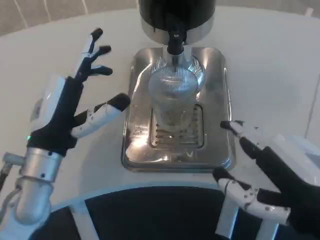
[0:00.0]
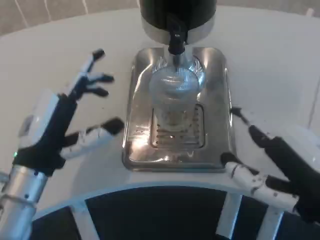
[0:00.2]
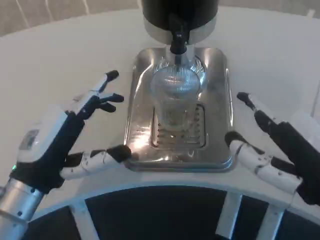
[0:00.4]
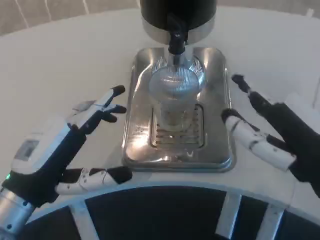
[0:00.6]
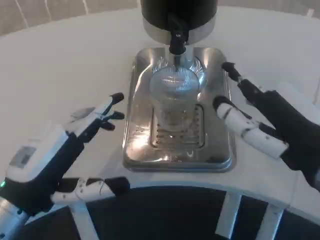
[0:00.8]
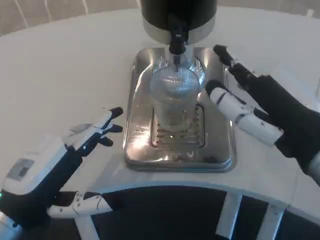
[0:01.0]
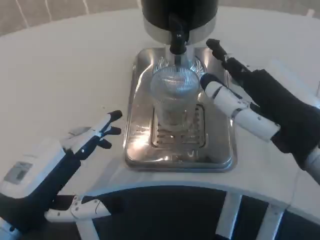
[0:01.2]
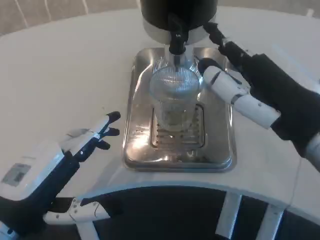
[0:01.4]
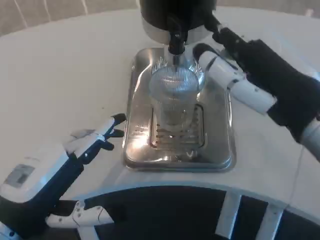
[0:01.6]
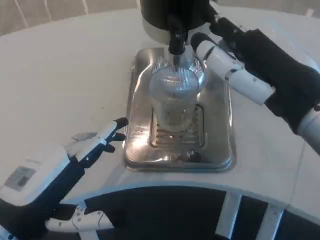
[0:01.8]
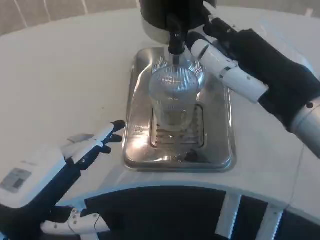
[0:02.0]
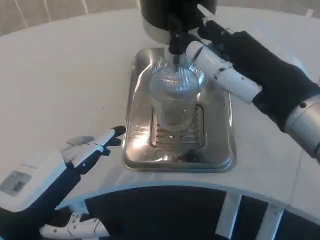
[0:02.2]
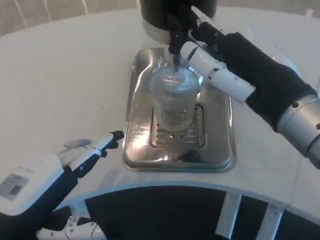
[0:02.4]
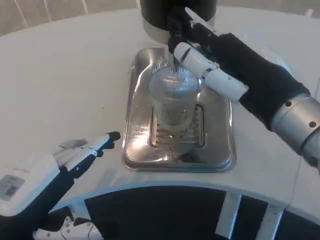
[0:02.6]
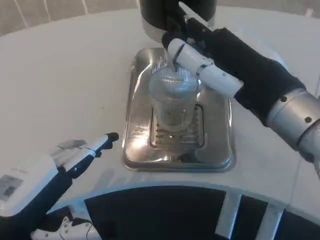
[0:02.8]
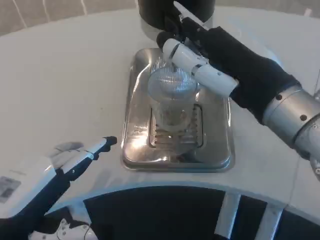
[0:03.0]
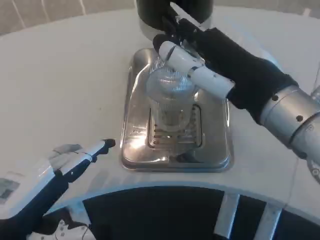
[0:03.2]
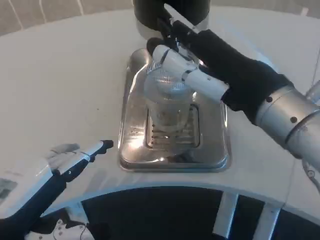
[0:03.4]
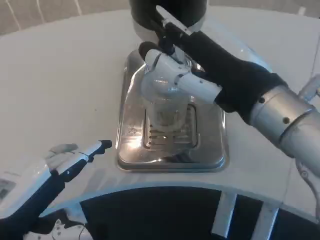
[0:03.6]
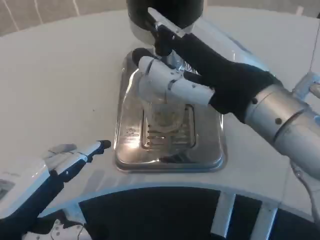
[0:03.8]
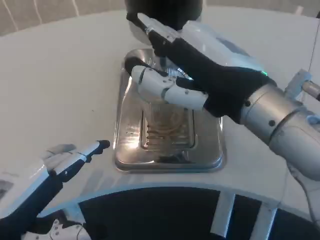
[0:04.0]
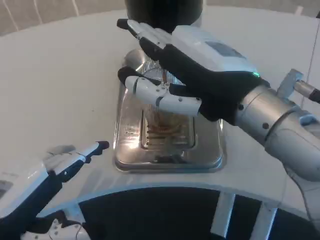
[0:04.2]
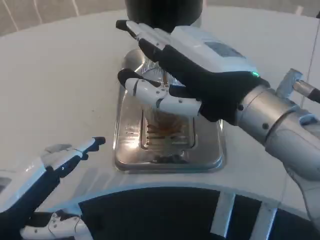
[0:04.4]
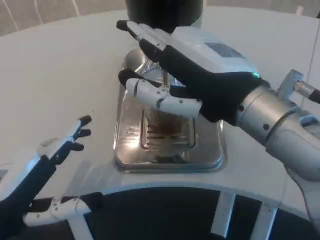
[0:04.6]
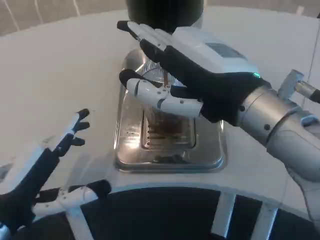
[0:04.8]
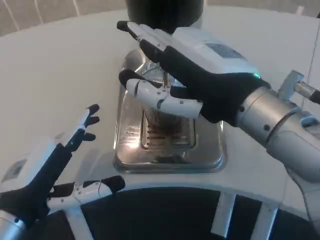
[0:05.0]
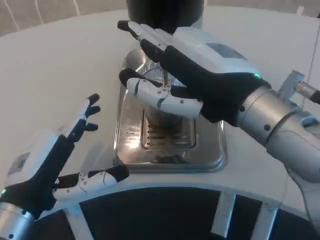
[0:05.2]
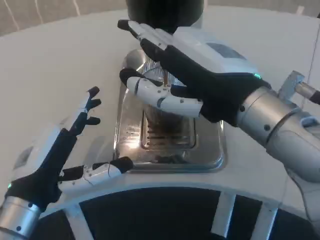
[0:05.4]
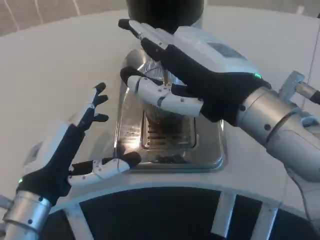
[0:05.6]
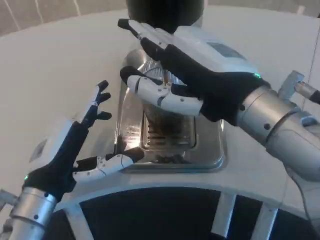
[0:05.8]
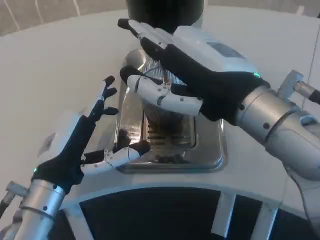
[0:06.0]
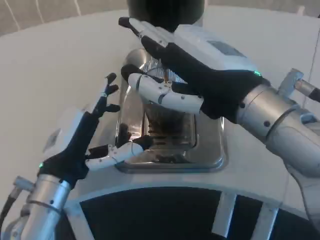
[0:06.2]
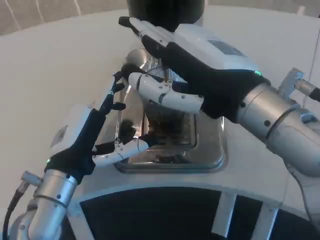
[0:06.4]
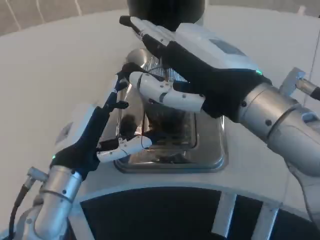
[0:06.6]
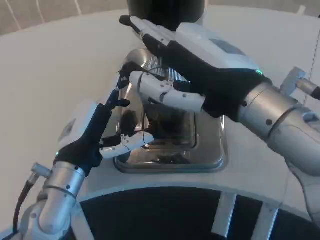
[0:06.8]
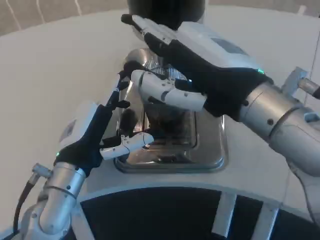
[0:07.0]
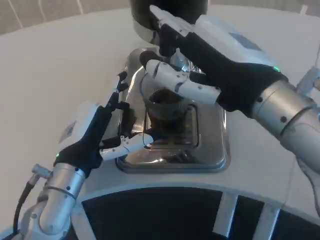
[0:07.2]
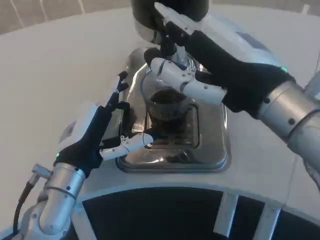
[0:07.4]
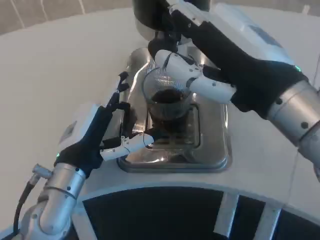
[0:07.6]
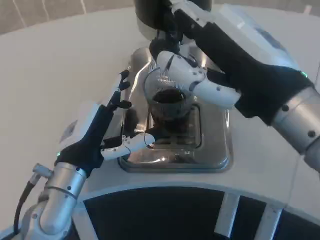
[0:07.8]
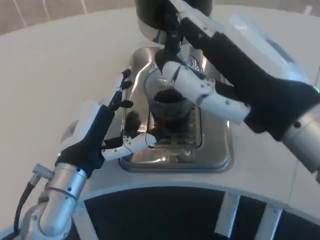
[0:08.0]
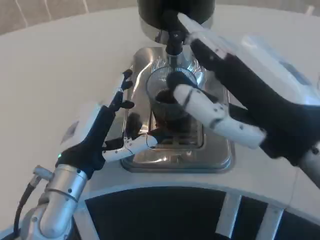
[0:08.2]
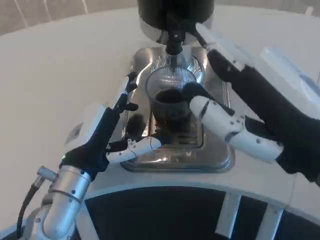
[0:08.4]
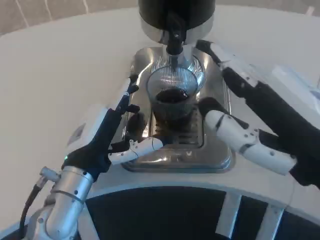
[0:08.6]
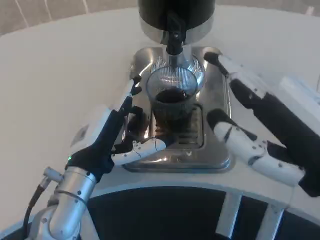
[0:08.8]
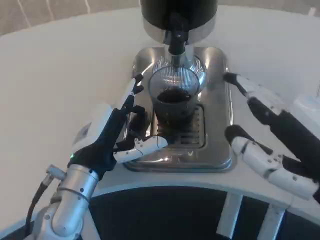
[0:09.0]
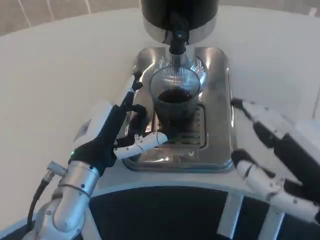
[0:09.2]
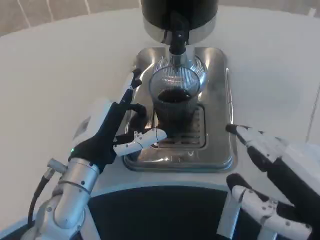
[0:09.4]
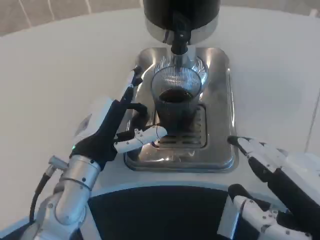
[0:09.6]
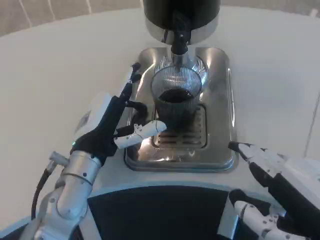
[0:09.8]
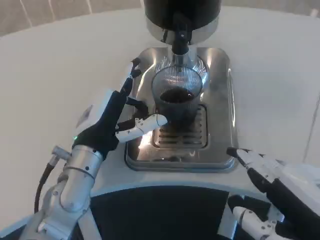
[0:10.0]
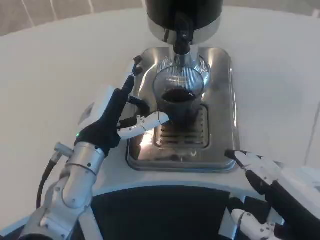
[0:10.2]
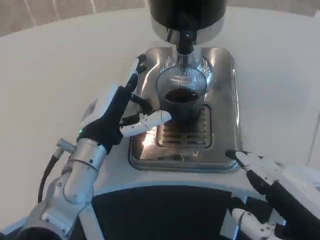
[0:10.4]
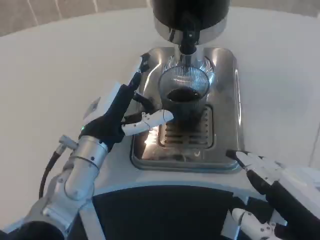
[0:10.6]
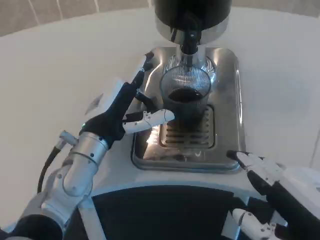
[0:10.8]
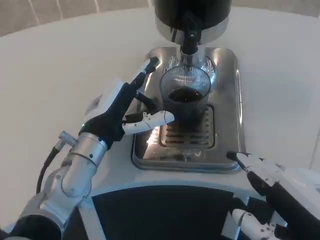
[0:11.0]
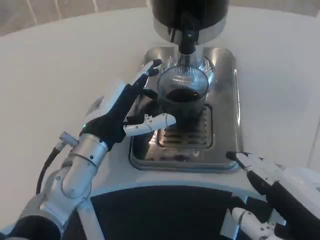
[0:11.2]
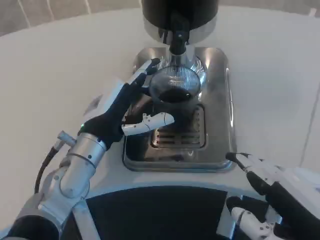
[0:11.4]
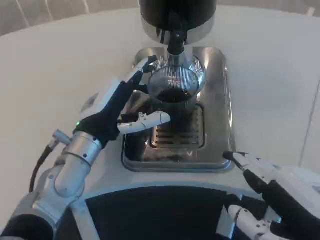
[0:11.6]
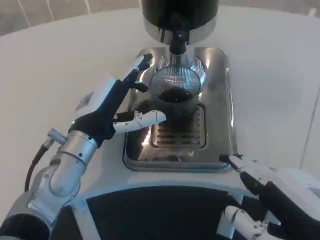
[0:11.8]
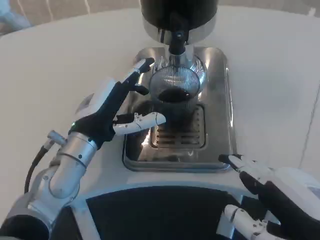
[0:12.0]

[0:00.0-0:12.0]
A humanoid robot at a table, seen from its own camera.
Task of the whole recording: Grasp the cup under the faucet to collect the drink, then remove the cup.
0:00.0 to 0:01.6: The right hand goes approximately 10 cm upward and forward. The left hand travels backward by roughly 10 cm.
0:01.6 to 0:03.0: There are only small adjustments of the hands.
0:04.4 to 0:06.0: The left hand travels forward and to the right by approximately 10 cm.
0:07.6 to 0:09.0: The right hand shifts approximately 10 cm backward, to the right and downward.

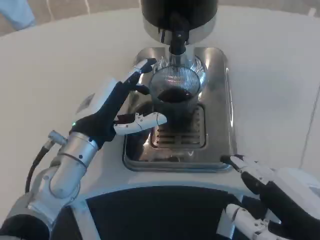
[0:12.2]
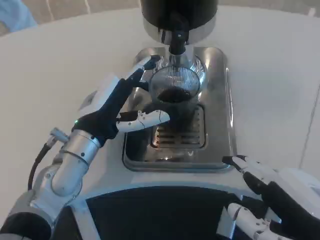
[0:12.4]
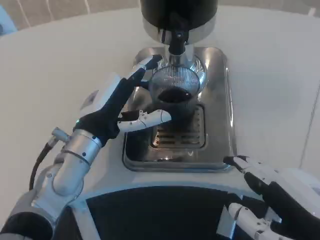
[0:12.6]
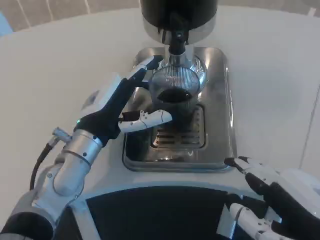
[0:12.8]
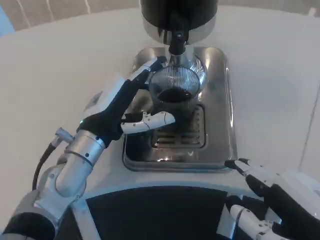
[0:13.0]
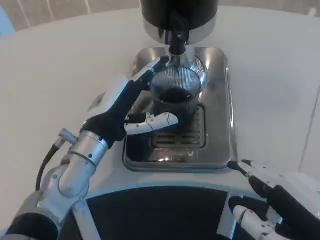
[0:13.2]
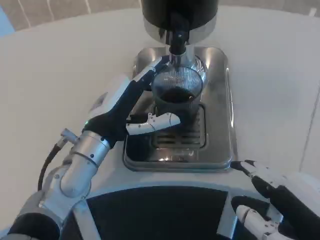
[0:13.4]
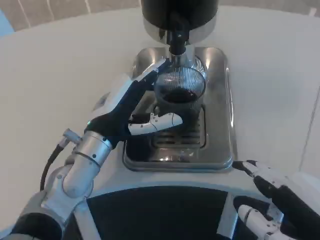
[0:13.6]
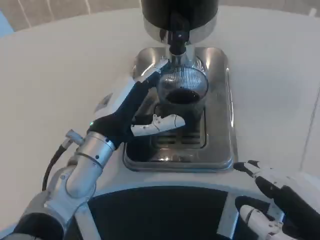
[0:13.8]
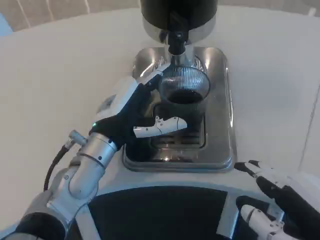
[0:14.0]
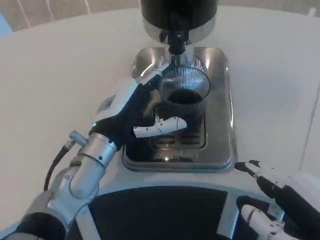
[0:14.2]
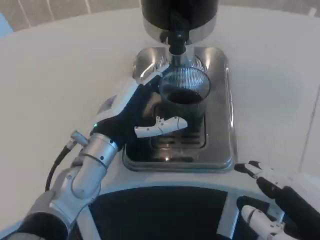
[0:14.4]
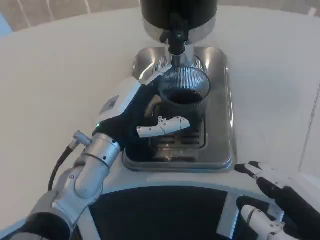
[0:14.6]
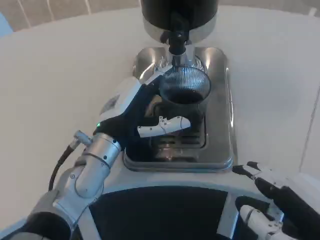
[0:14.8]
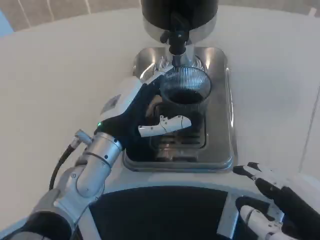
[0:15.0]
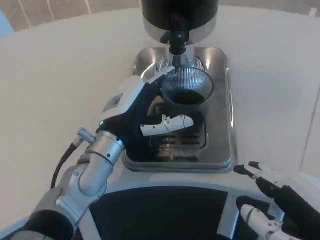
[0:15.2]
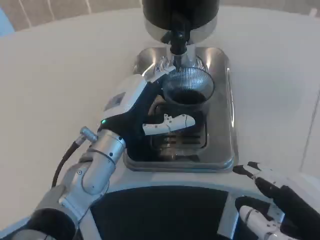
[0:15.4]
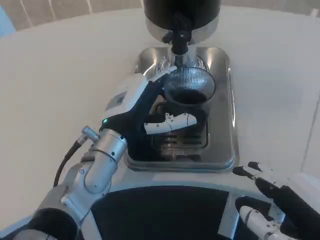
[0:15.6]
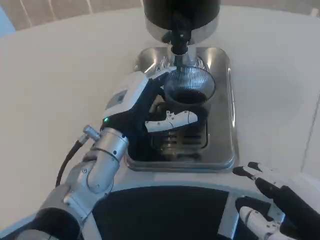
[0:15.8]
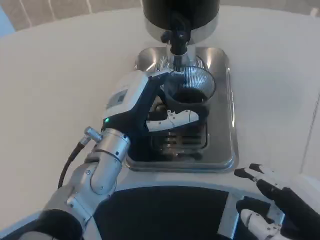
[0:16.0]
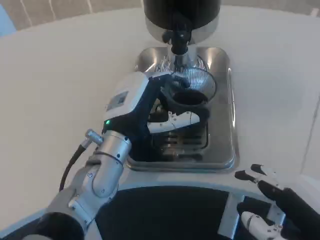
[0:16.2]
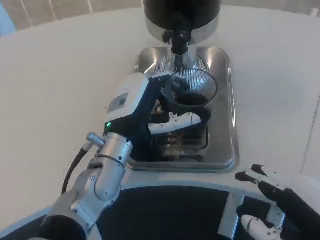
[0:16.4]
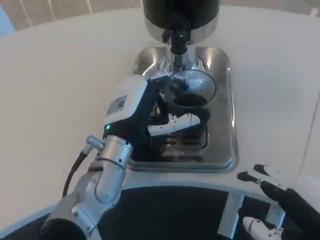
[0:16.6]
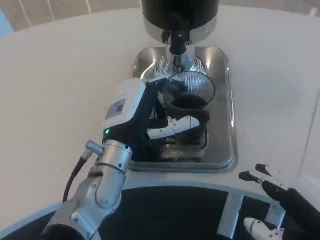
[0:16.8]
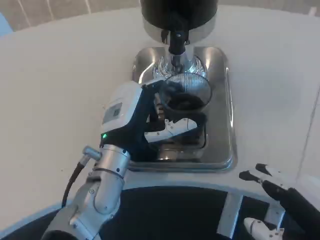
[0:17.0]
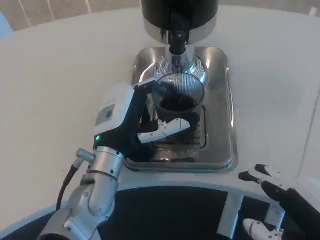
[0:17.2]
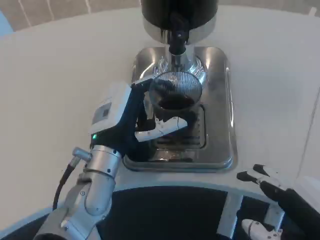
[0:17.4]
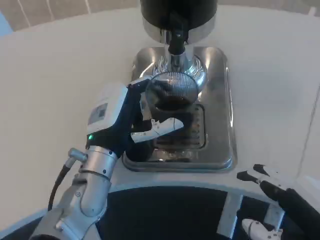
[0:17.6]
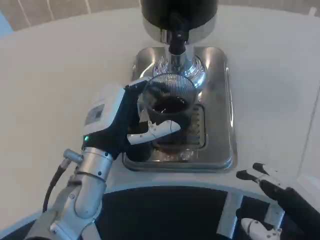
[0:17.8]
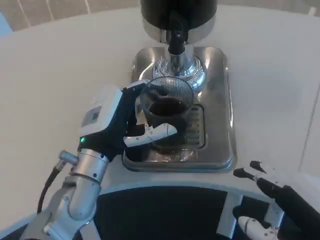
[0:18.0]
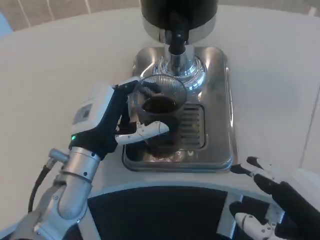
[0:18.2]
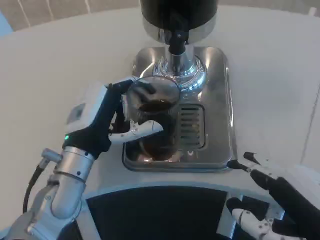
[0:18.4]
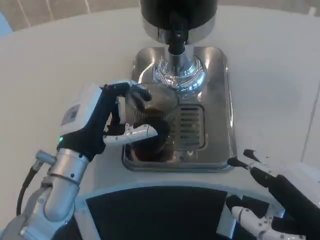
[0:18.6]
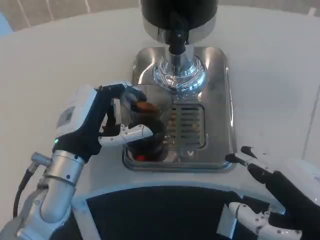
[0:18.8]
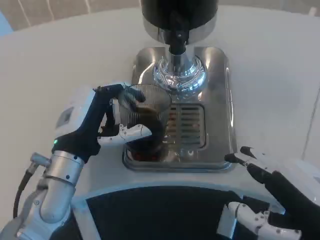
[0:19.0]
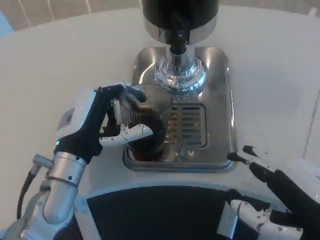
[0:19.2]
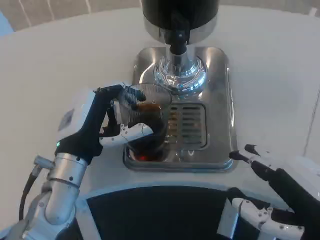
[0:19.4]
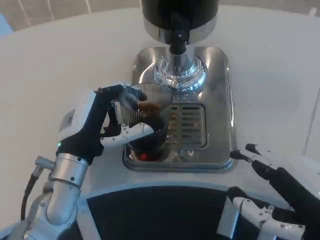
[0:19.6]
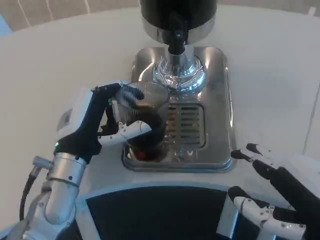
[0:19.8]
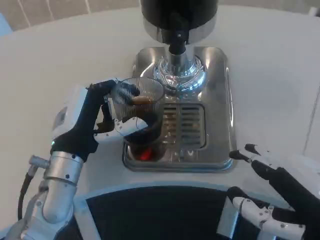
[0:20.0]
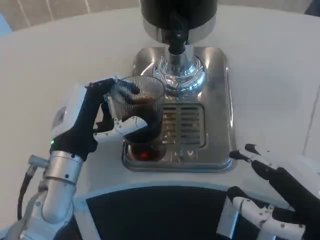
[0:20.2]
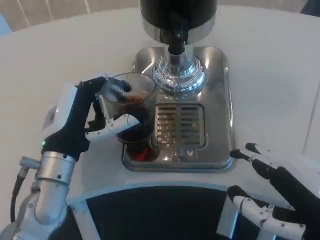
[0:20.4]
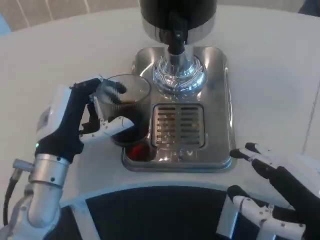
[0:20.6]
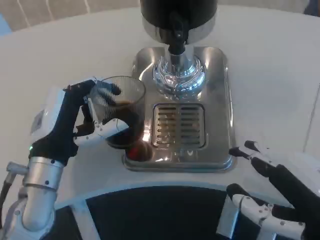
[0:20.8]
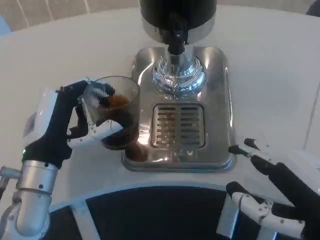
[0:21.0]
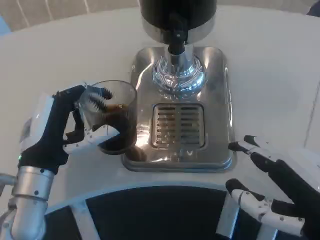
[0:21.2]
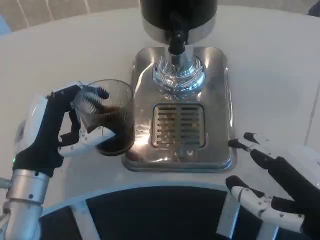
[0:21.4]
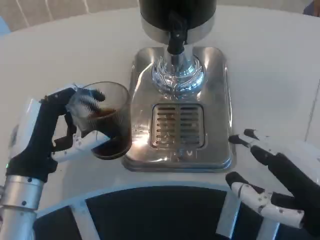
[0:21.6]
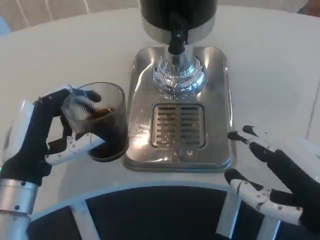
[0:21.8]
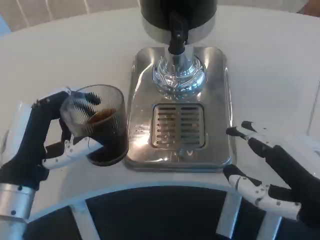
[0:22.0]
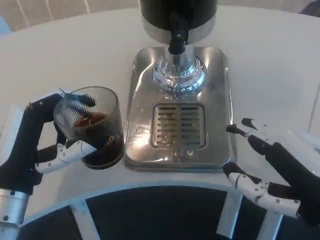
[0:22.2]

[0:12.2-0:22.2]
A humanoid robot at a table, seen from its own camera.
Task of the whole recording: Grasp the cup under the faucet to collect the drink, then remove the cup.
0:12.2 to 0:20.8: There are only small adjustments of the hands.
0:20.8 to 0:22.2: The left hand goes roughly 5 cm backward.

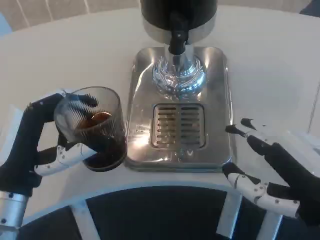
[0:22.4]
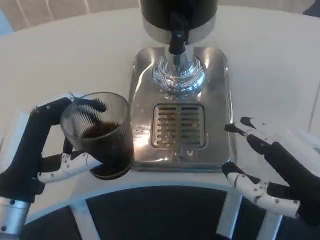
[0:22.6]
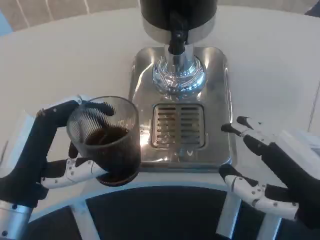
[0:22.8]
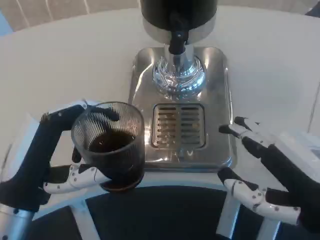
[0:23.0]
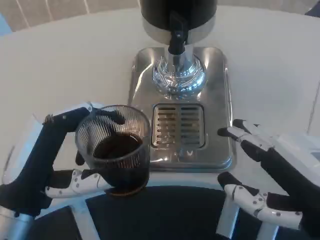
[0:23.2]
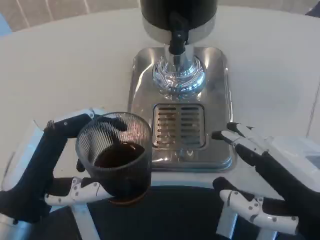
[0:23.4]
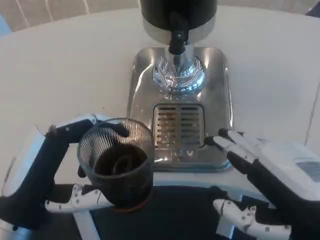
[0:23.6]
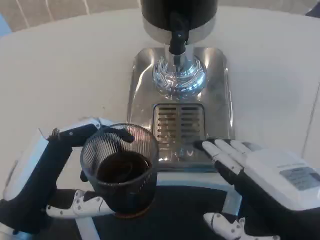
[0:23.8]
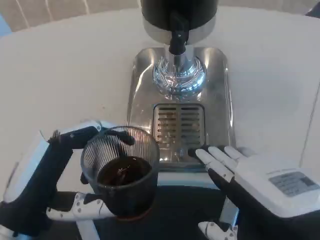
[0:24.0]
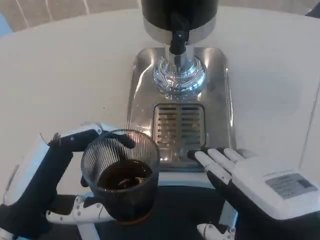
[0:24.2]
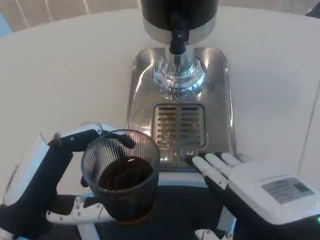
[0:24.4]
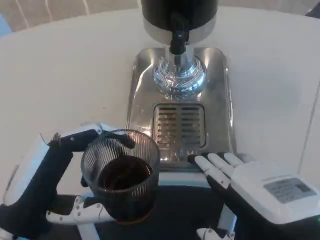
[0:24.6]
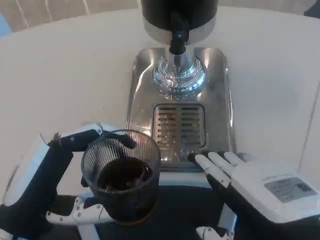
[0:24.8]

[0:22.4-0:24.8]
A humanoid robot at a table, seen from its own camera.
Task of the whole recording: Grasp the cup under the faucet to collect the drink, then remove the cup.
0:23.6 to 0:24.8: There are only small adjustments of the hands.
